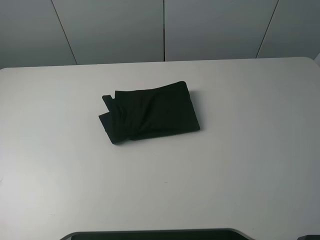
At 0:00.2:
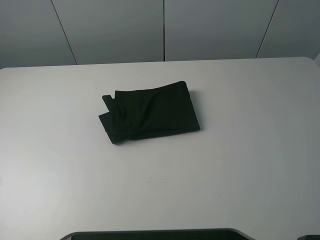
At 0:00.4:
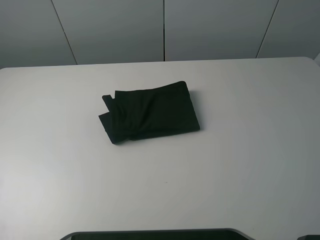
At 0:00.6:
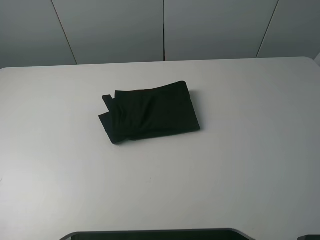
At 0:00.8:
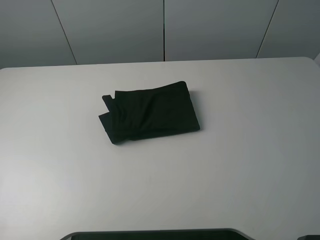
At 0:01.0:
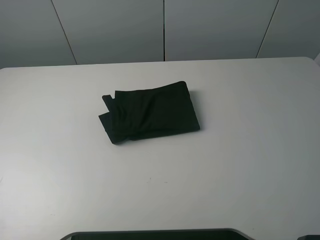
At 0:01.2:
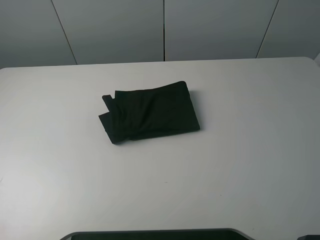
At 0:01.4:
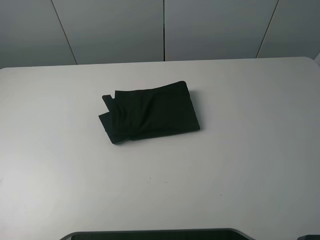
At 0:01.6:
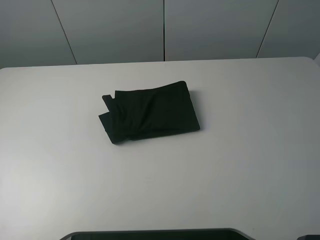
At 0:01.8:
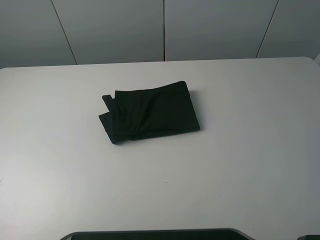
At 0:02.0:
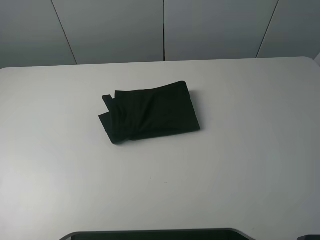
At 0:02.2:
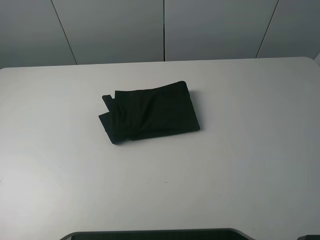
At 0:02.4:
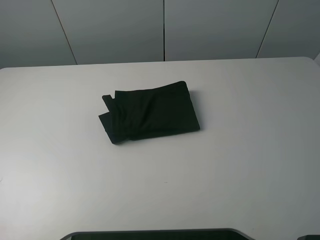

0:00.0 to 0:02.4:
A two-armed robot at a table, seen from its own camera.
Task of the whole recording: fold the clothes on the table.
0:01.2 to 0:02.4: Both grippers stay about where they are.
